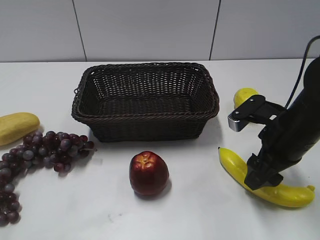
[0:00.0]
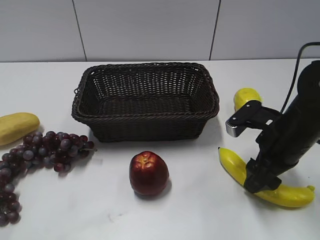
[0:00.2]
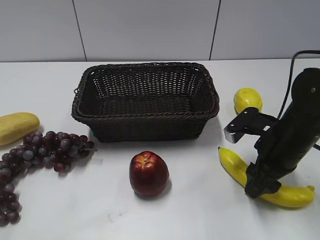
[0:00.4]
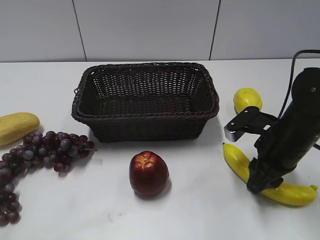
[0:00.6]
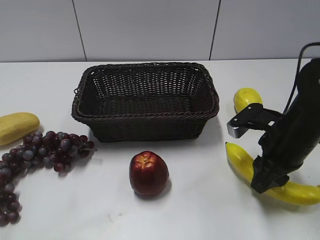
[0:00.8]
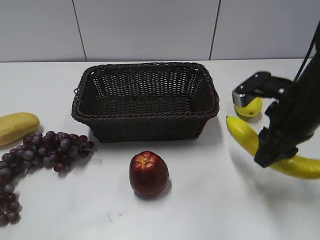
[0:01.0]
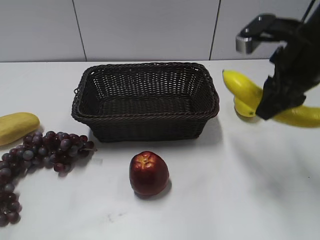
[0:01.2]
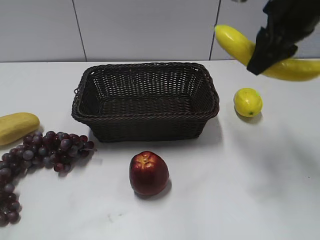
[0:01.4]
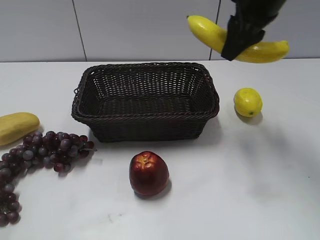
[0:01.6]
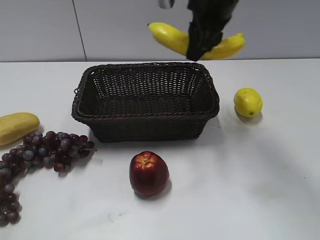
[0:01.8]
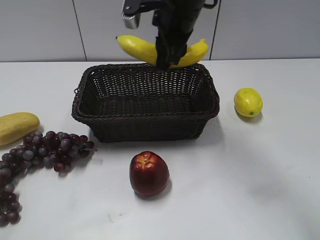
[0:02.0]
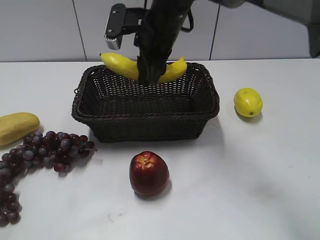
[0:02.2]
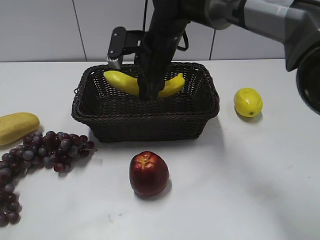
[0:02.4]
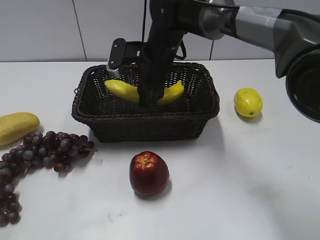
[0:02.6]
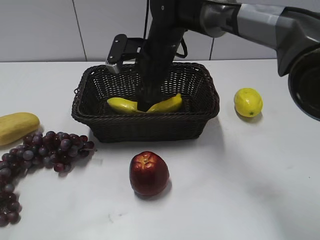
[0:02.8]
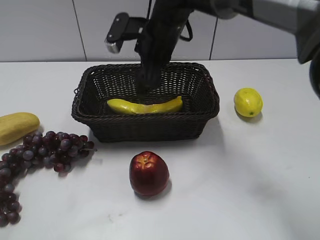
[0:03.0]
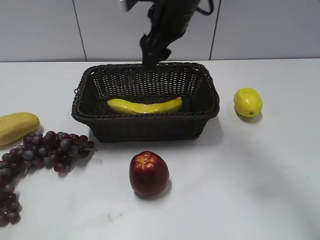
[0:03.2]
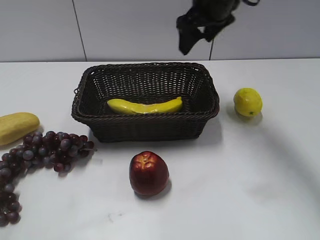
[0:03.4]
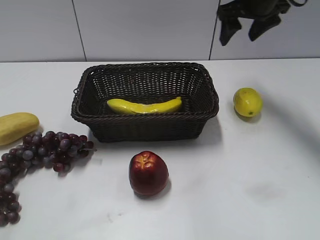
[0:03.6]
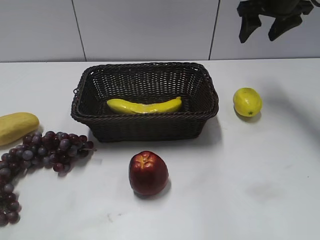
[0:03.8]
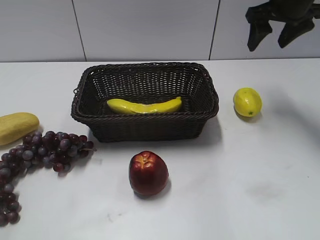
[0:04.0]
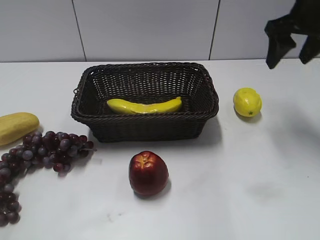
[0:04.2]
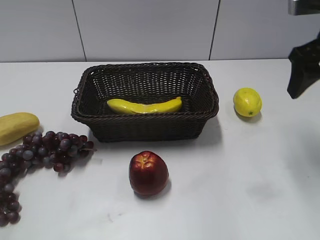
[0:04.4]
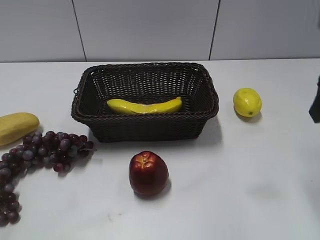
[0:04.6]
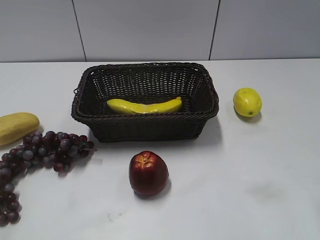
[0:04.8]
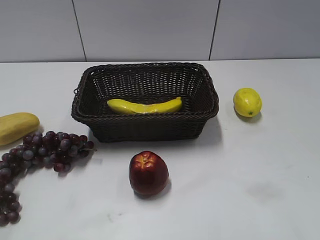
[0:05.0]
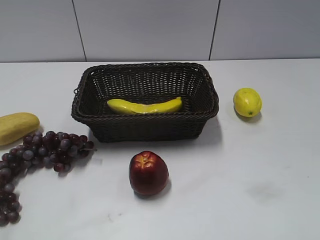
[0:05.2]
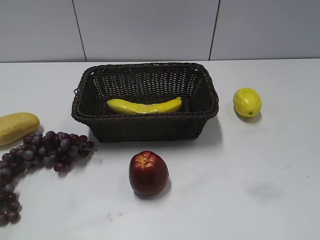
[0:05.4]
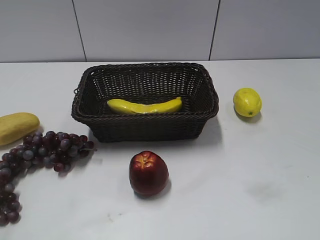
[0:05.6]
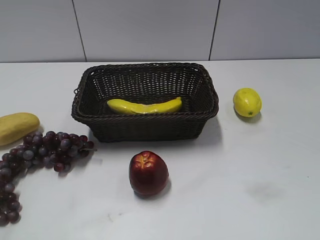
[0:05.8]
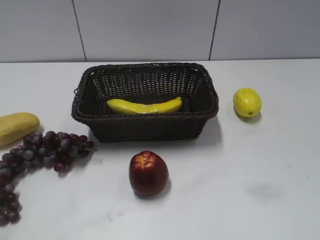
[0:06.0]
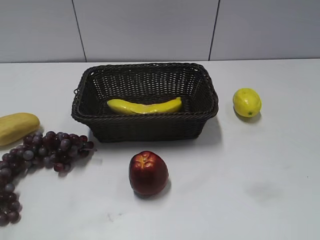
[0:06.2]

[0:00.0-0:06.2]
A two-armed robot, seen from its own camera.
Step, 0:00.8 to 0:02.8: Place the banana in the basket with right gripper.
0:00.0 to 0:01.6: The right gripper goes approximately 20 cm upward, forward and to the left, and closes.
0:01.6 to 0:03.2: The right gripper shifts about 10 cm to the left, goes downward and returns, approximately 15 cm each way, and opens up.
0:03.2 to 0:04.6: The right gripper heads to the right and backward, covering roughly 30 cm.
0:04.6 to 0:06.2: The right gripper moves backward, roughly 25 cm.

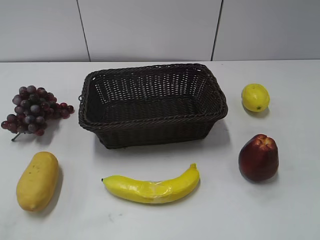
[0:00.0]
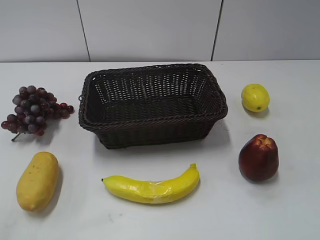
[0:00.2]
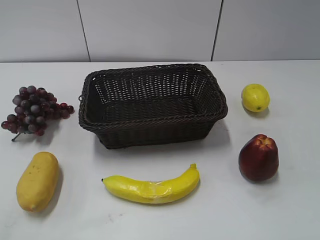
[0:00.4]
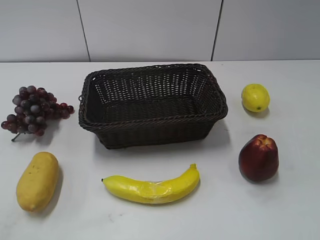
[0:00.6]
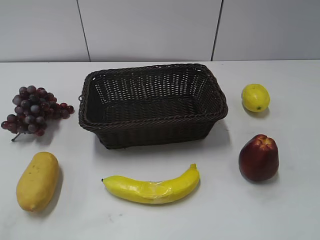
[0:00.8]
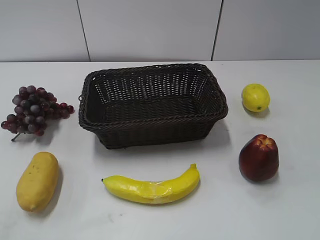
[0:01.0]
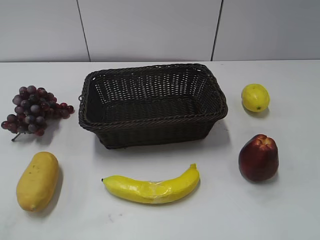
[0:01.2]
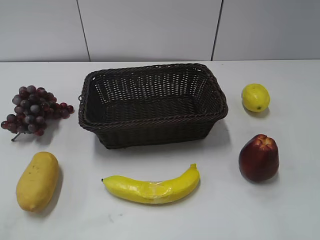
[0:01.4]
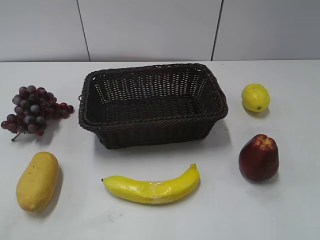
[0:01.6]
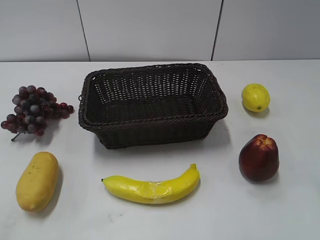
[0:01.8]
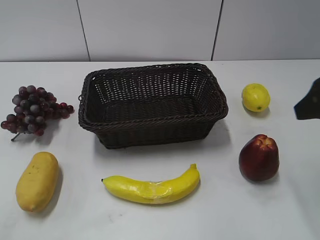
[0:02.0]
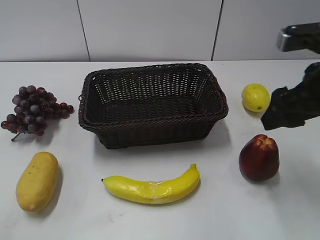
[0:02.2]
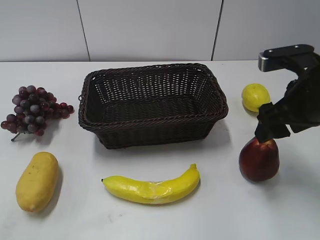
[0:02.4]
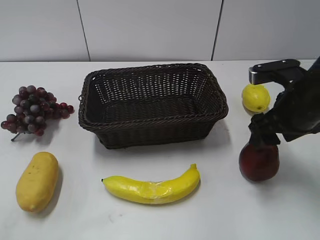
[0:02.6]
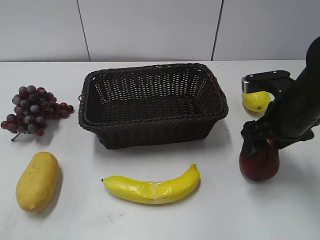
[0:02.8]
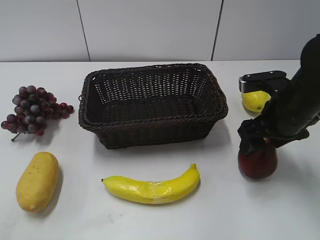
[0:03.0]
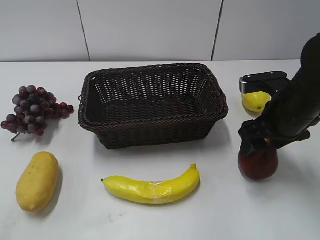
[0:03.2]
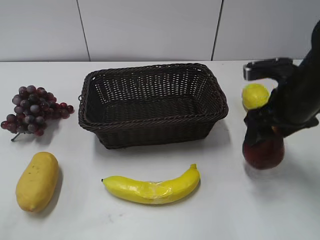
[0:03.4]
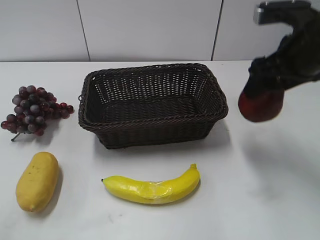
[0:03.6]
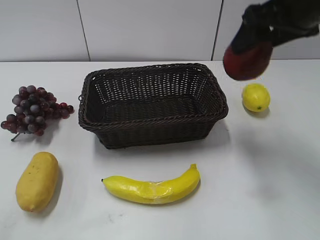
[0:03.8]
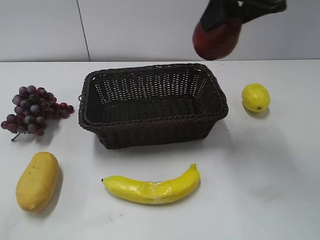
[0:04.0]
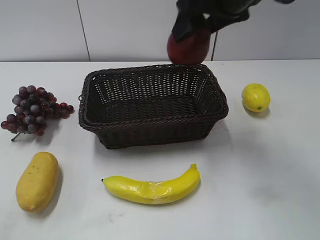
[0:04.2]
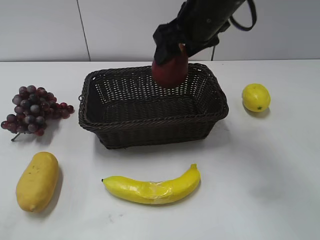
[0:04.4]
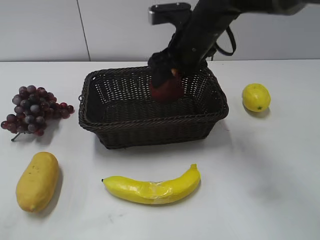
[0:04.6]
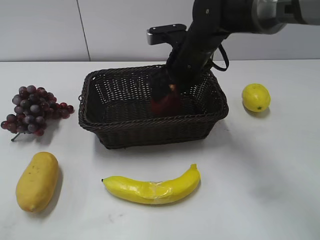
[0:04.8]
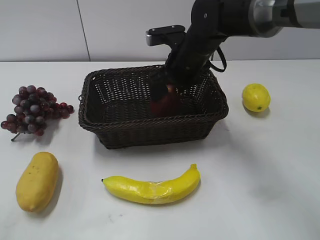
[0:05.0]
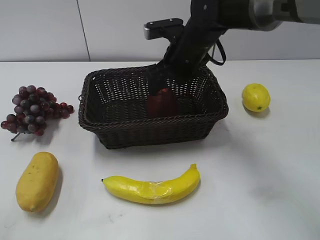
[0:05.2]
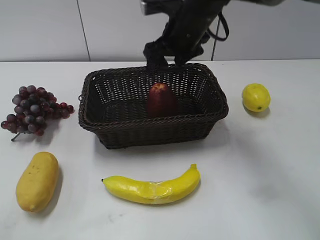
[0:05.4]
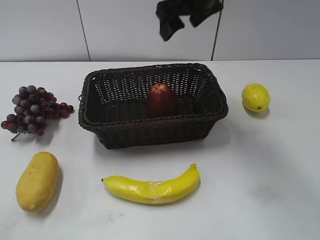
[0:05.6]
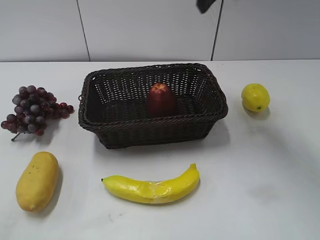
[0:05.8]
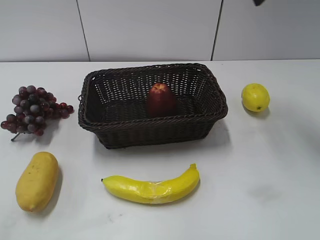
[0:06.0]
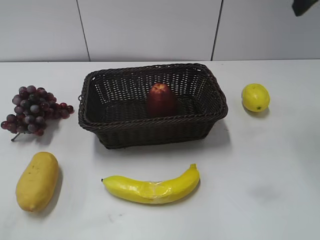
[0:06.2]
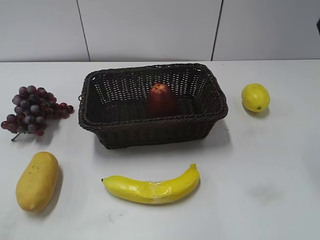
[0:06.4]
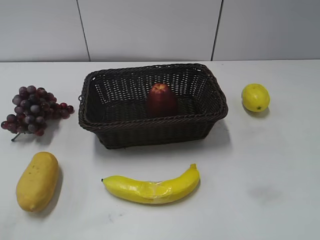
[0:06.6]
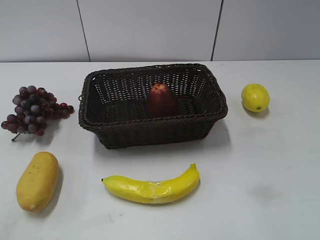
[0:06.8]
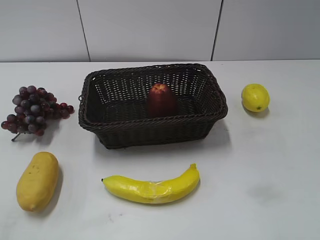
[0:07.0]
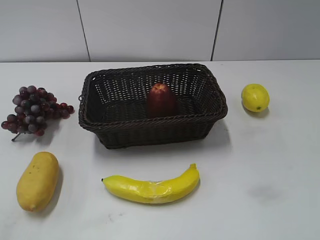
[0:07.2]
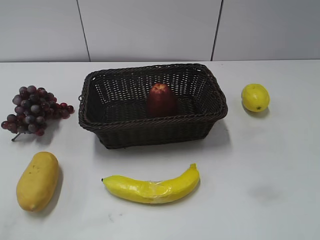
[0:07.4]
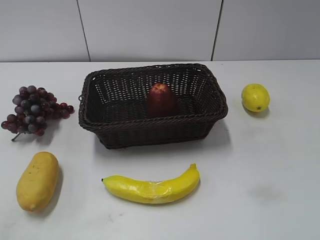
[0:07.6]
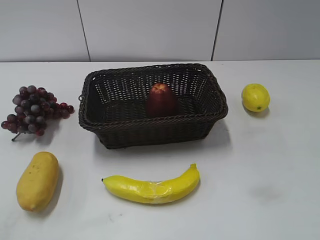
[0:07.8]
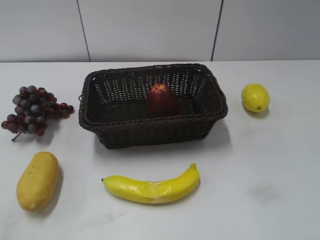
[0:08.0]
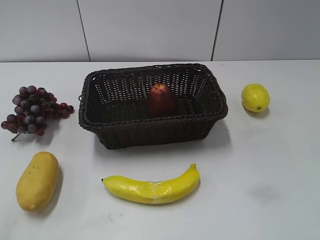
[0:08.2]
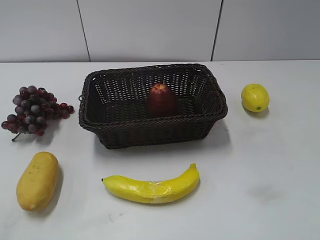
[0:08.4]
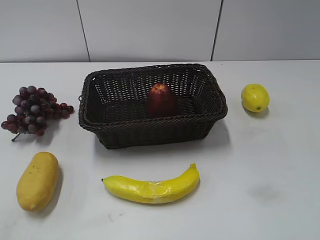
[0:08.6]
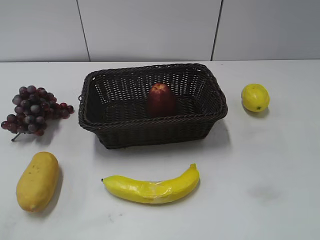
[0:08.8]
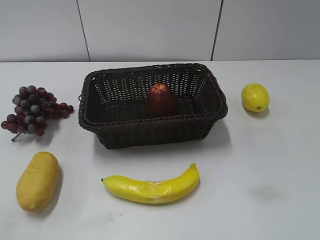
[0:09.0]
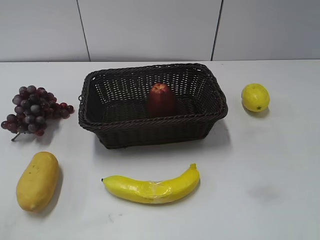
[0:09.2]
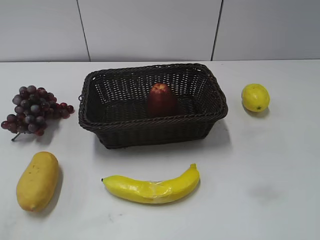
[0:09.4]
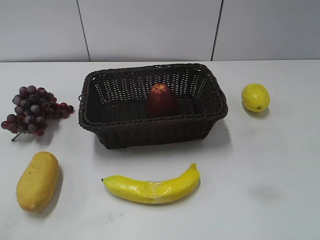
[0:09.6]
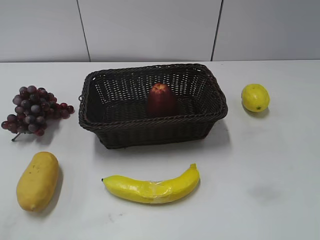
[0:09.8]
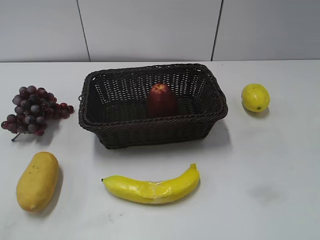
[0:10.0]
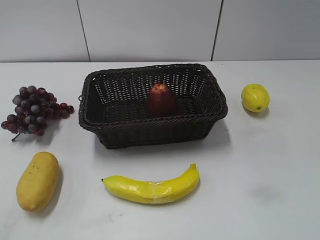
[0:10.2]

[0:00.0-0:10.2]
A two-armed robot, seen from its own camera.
Step, 0:02.0 to 0:02.6: Grasp the apple with right gripper.
Step, 0:03.0 to 0:05.0: Place the apple in the basket with right gripper.
0:01.4 to 0:03.0: The right gripper goes some 30 cm forward and downward.
0:03.0 to 0:04.4: The right gripper shifts roughly 20 cm to the left, upward and forward.
0:04.4 to 0:05.8: The right gripper heads upward and to the right, covering some 15 cm.
0:05.8 to 0:07.2: The right gripper travels backward and to the right by roughly 40 cm.
0:08.8 to 0:10.2: Both grippers stay about where they are.
